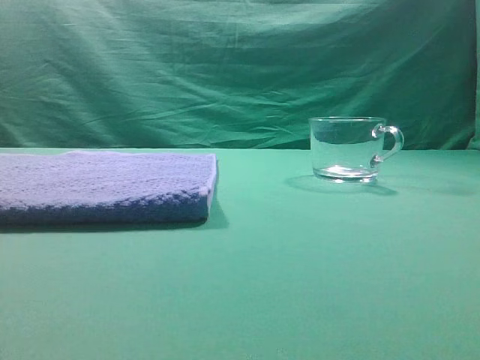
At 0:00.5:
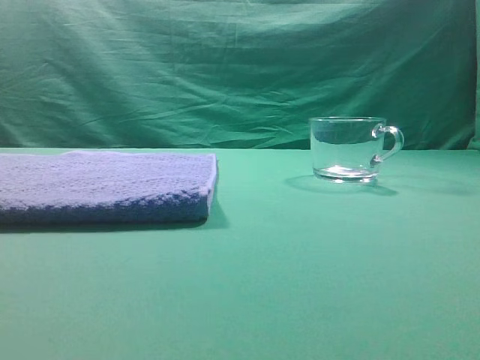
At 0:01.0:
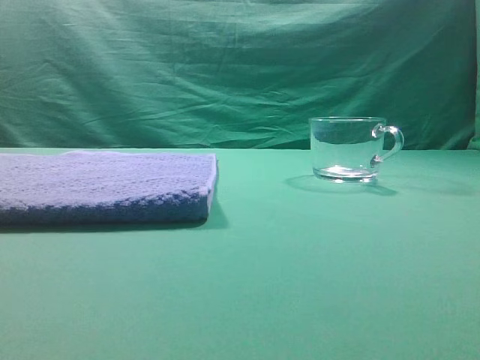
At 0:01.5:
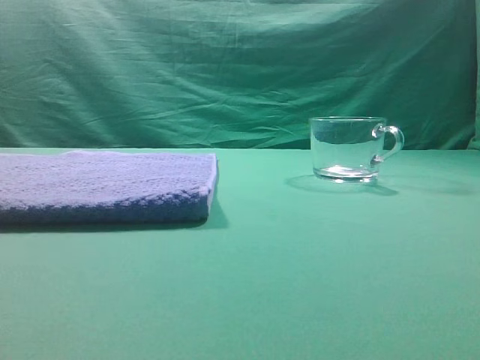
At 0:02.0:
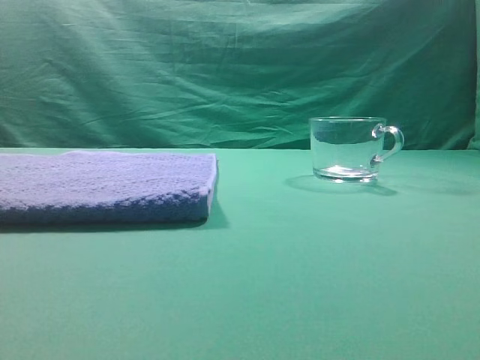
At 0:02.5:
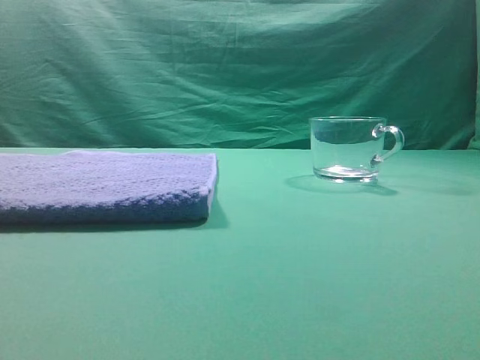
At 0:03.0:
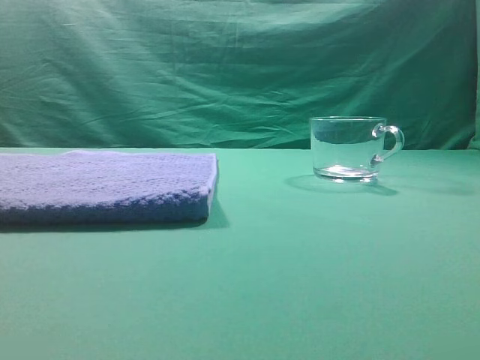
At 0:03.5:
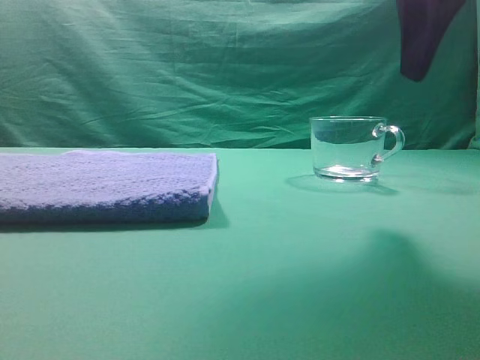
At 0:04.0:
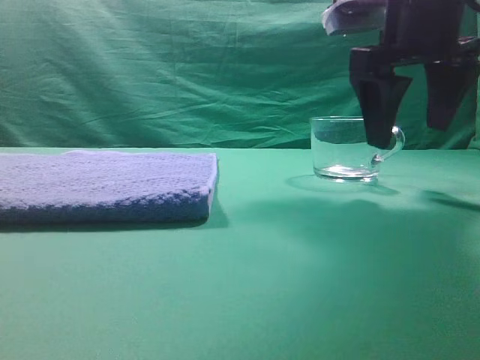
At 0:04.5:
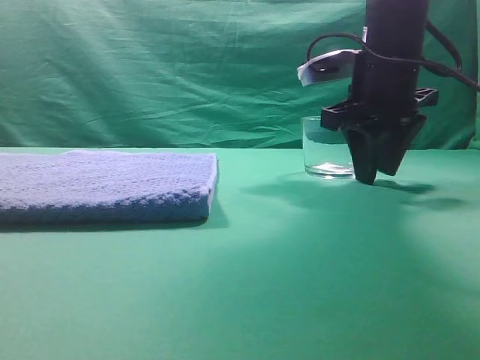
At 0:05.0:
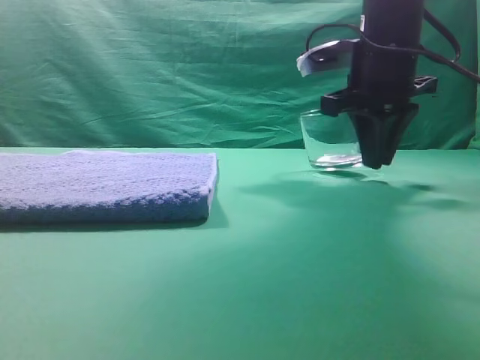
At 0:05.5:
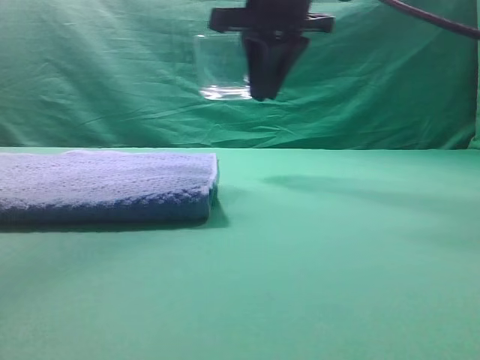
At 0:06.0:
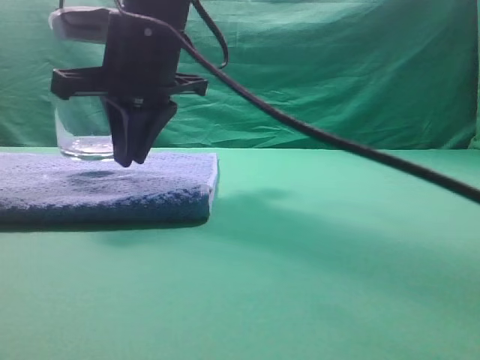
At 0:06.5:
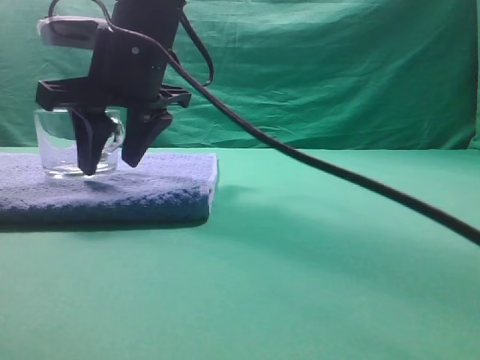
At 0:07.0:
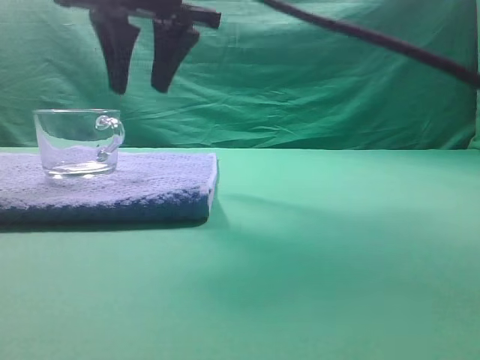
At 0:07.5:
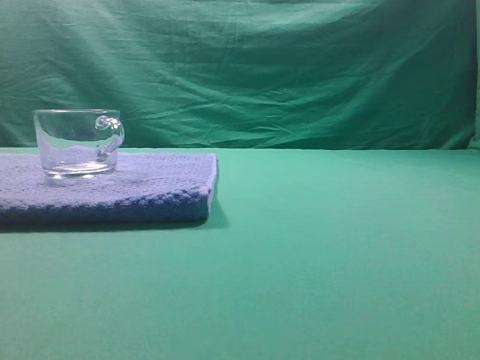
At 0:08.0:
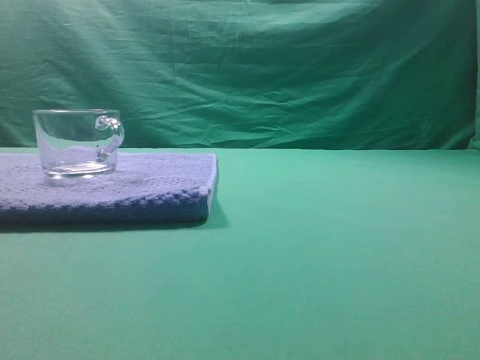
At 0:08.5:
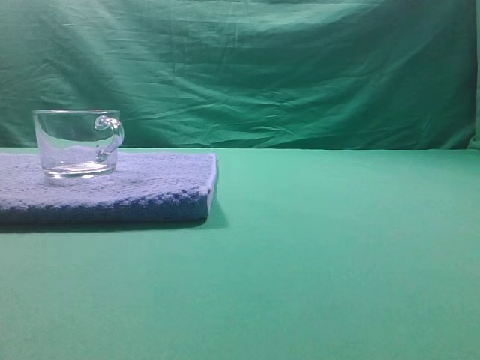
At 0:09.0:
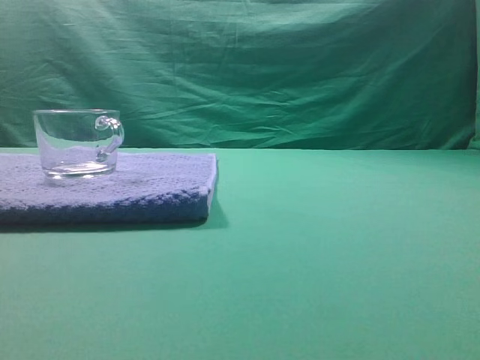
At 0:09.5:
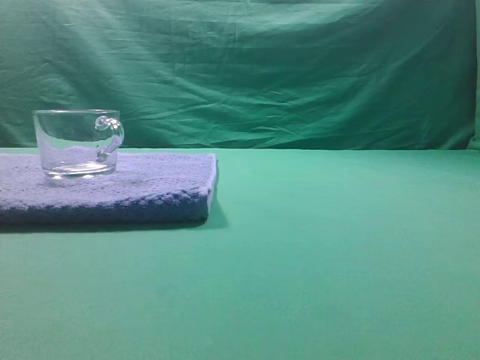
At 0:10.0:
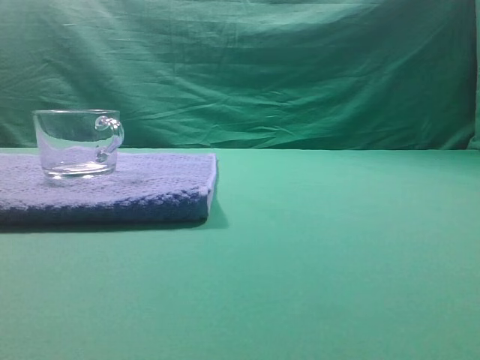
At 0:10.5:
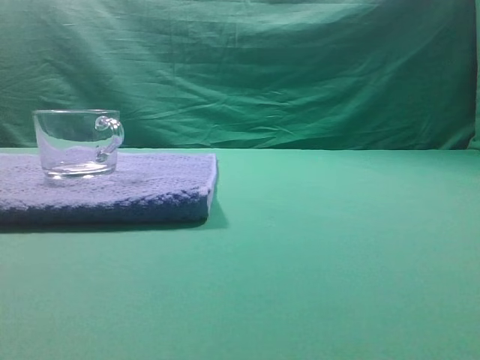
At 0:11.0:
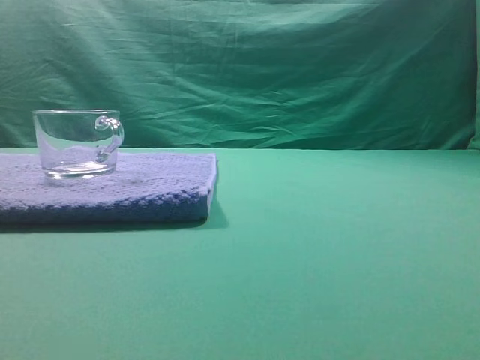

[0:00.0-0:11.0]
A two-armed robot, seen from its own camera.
Task of the whole recording: grasp the transparent glass cup and place it within the blue towel.
Step, 0:00.0 to 0:05.0: Grasp the transparent glass cup.
Step, 0:05.5 to 0:06.5: Place the glass cup on the blue zone.

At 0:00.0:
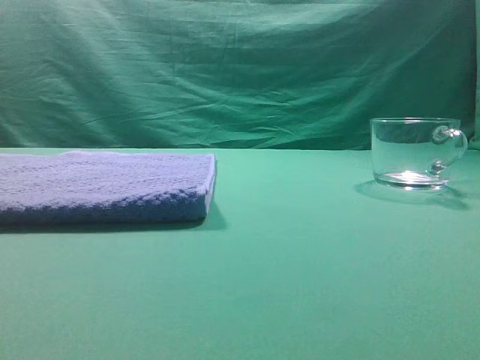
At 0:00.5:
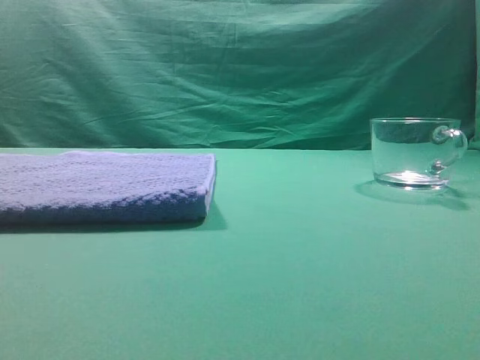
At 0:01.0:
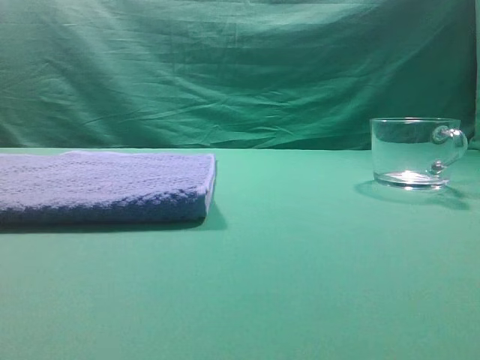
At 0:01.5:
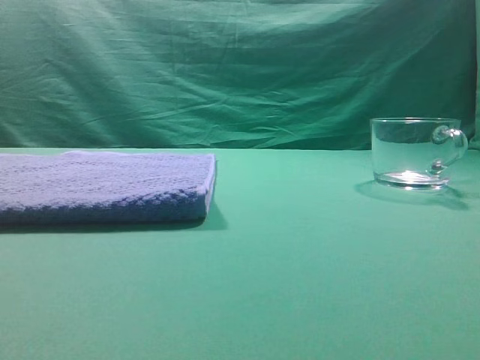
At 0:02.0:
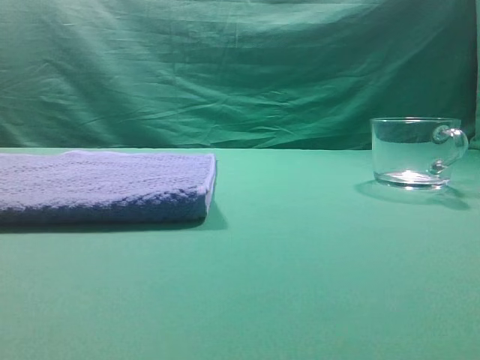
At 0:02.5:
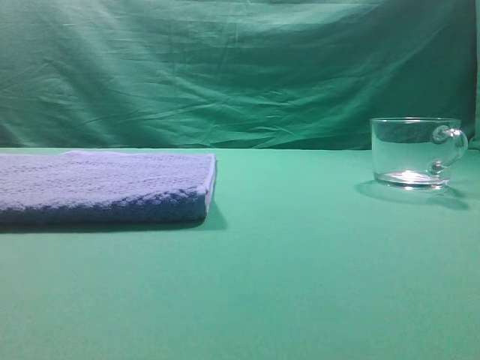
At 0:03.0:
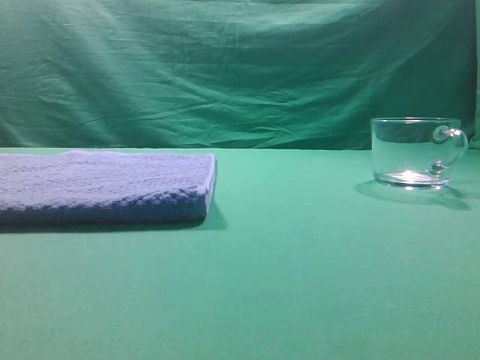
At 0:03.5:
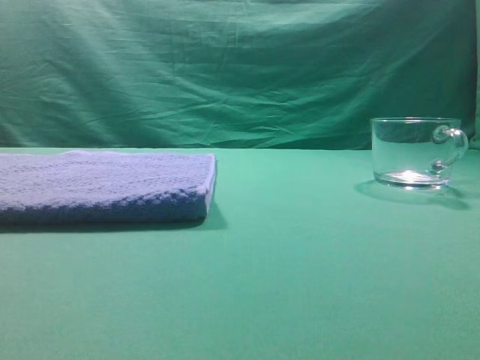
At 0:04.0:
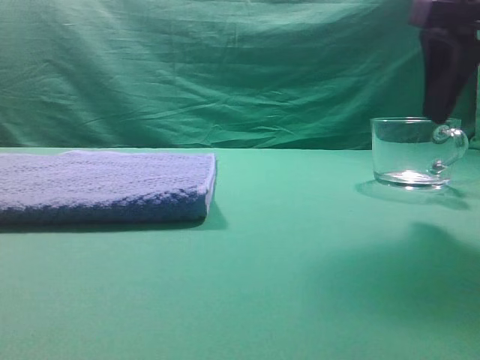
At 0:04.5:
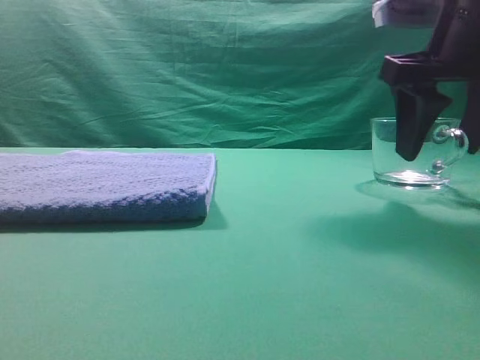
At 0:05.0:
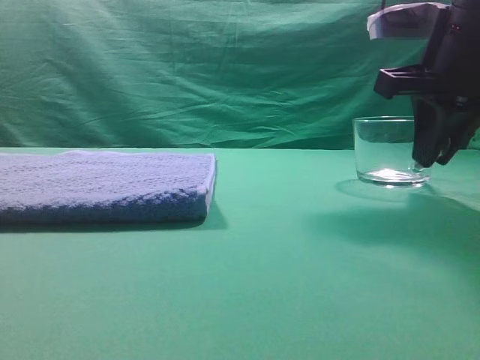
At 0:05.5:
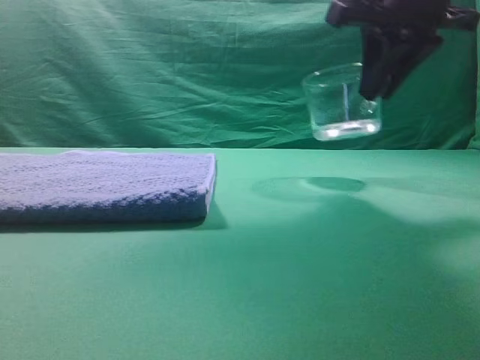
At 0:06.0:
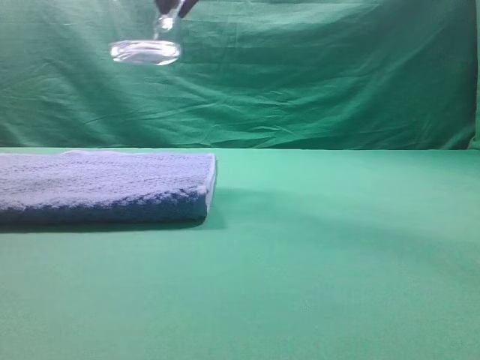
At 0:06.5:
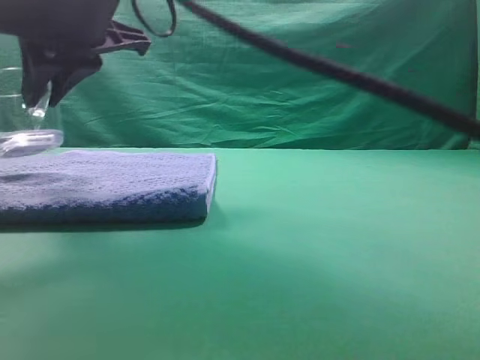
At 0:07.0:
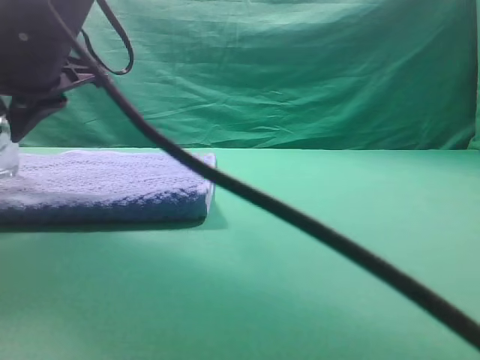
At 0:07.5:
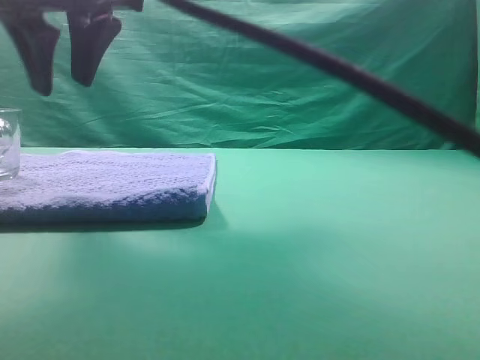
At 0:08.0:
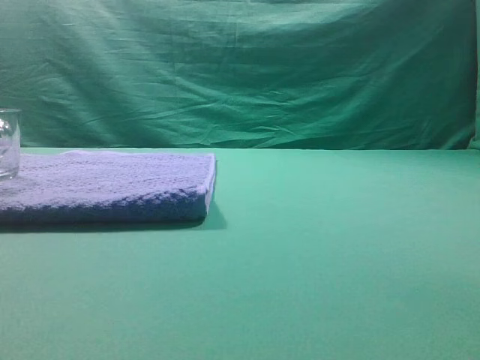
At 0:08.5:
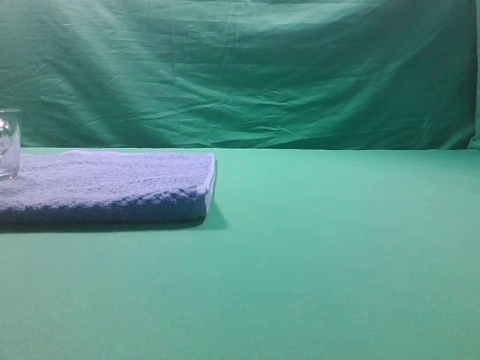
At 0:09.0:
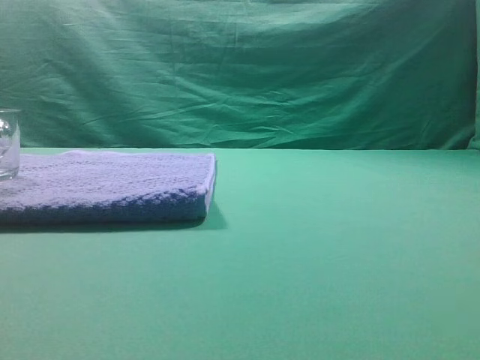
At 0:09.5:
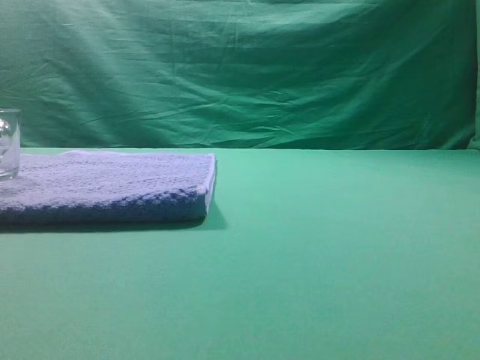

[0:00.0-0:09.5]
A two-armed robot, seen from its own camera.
Task of the whole recording: grasp the transparent glass cup and place it within the blue towel.
Step, 0:00.0 to 0:05.0: Grasp the transparent glass cup.
Step, 0:05.5 to 0:07.0: Place the glass cup on the blue zone.
